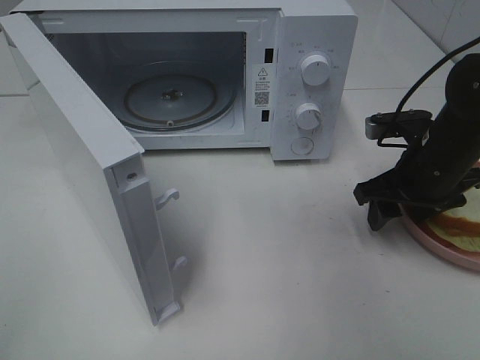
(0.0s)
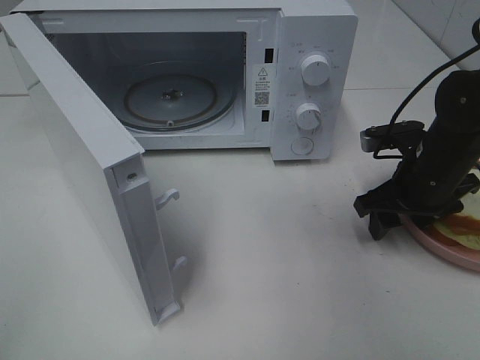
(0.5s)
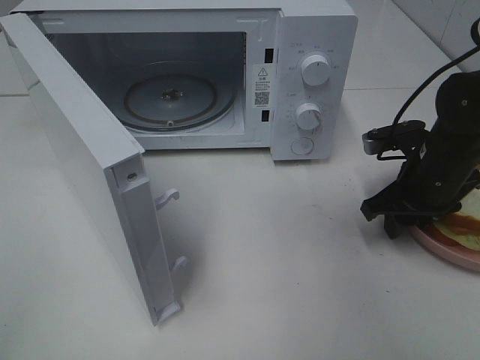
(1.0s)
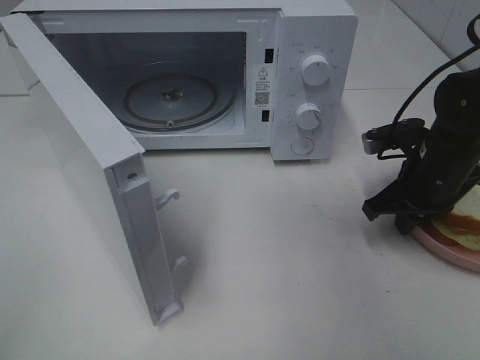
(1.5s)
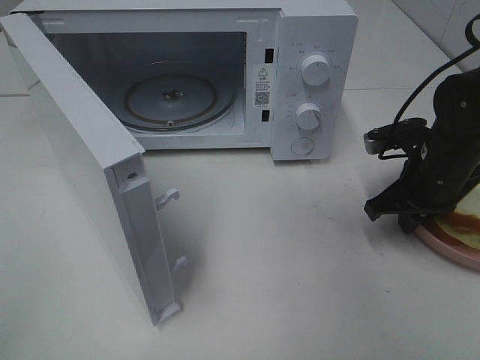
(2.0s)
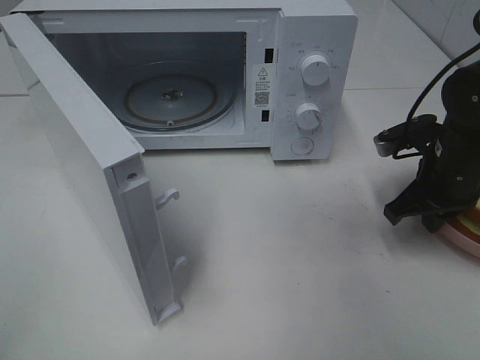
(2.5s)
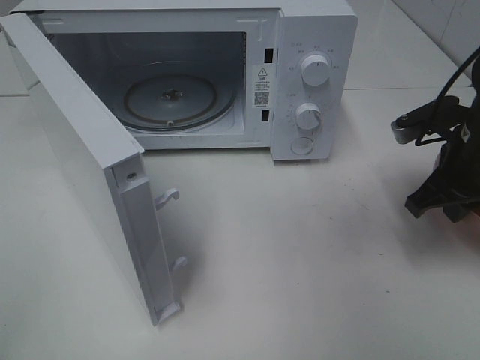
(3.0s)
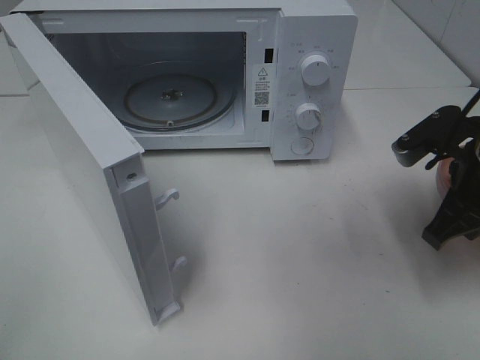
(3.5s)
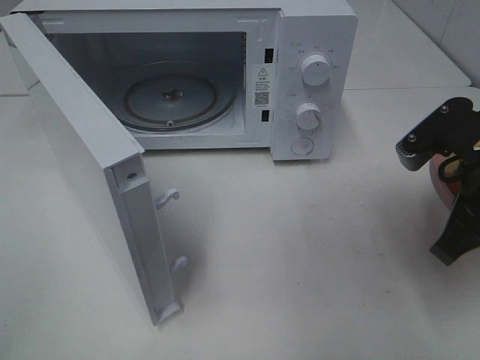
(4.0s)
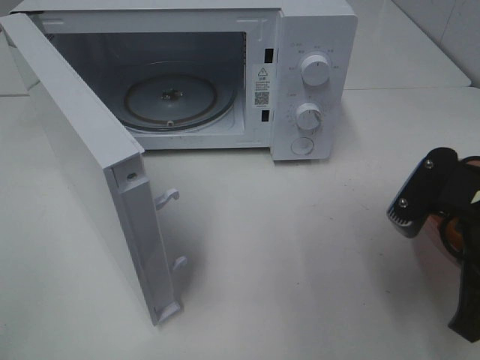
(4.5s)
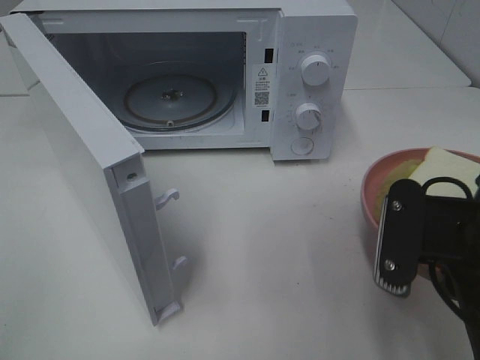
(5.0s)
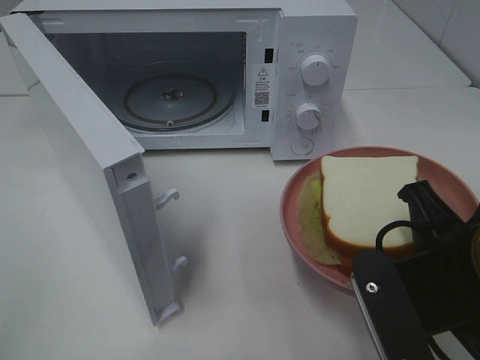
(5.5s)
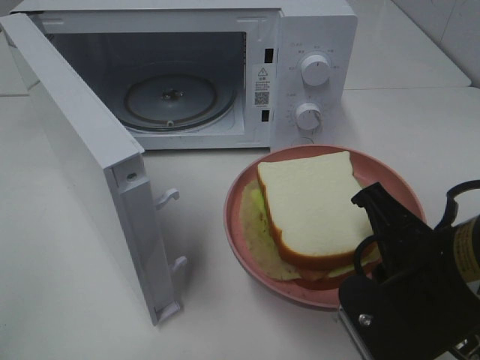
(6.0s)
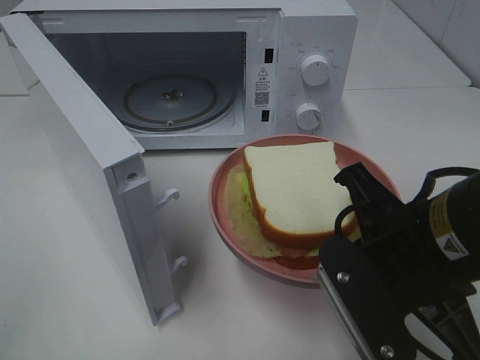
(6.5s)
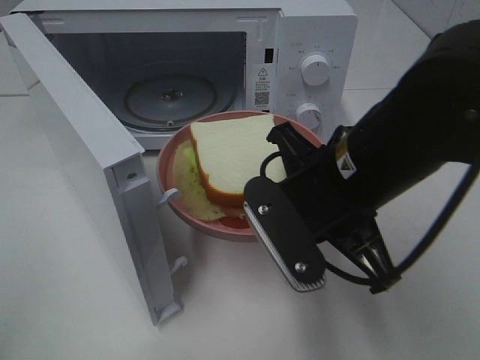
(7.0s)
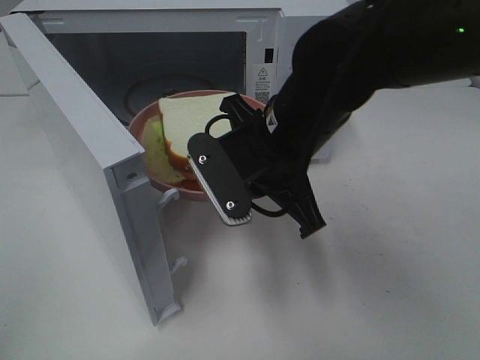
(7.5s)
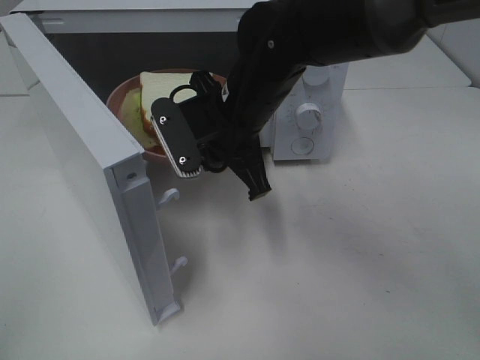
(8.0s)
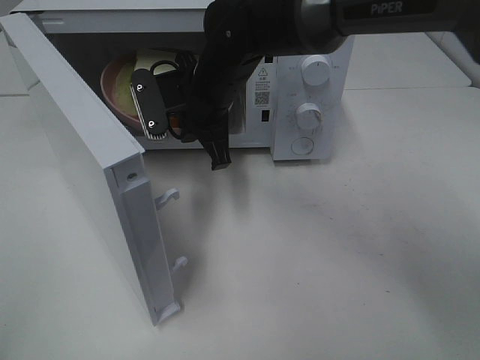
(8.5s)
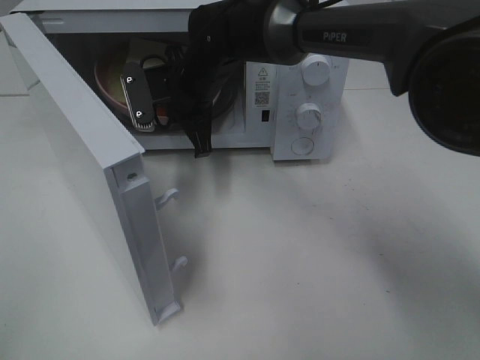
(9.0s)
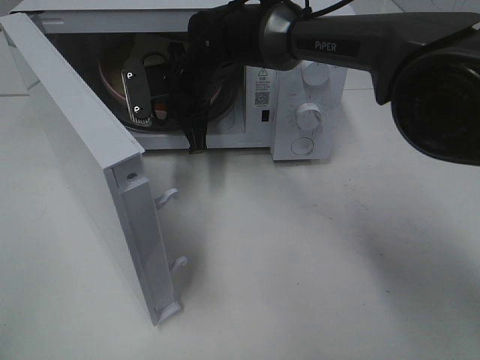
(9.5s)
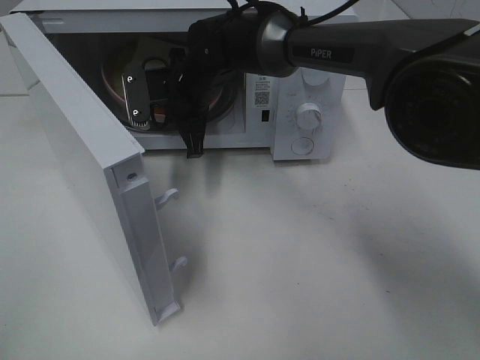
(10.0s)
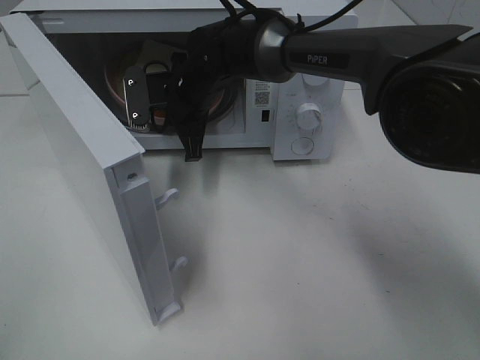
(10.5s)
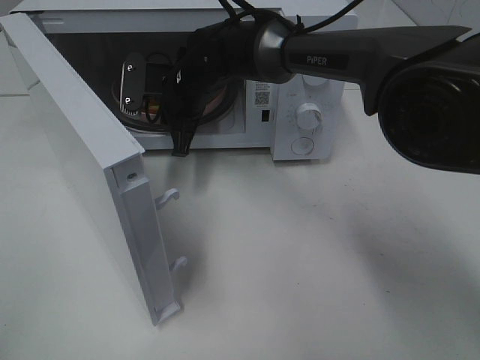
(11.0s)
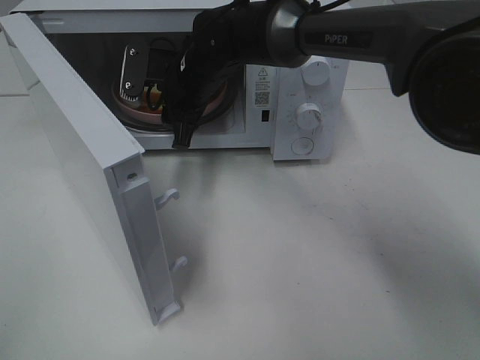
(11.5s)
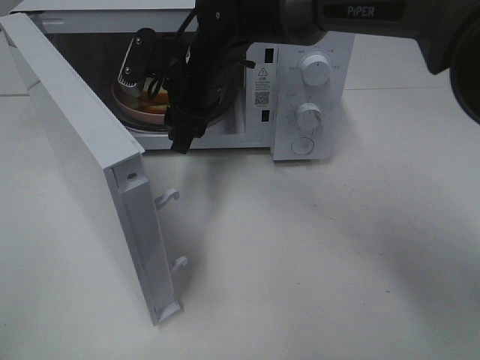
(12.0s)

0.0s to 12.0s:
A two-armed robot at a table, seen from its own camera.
Task of the whole recording: Heat Sandwich.
Step, 0.0s to 2.0s: Right hand: grab the plate with the sandwich.
0.0s to 2.0s: The right gripper closes up.
2.0s to 4.0s: The right gripper is displaced backward and upward by some 15 cm.
4.0s to 6.0s: The right gripper travels backward and to the left by roughly 10 cm.
6.0s to 8.0s: The right gripper goes some 25 cm forward and to the left.
8.0s to 10.0s: The right gripper heads forward and to the left, covering approximately 10 cm.
10.0s to 12.0s: The right gripper opens.

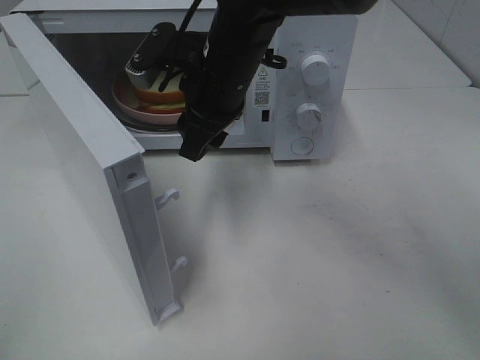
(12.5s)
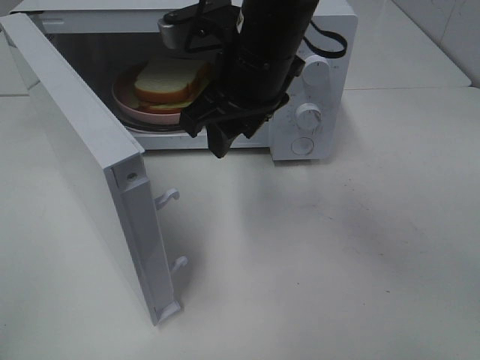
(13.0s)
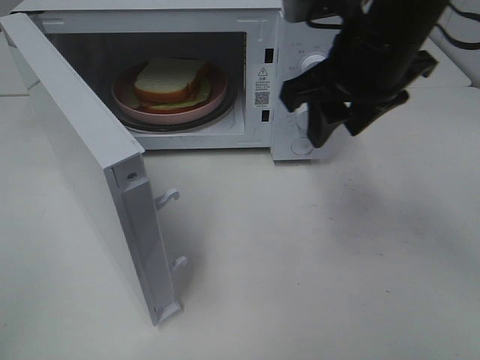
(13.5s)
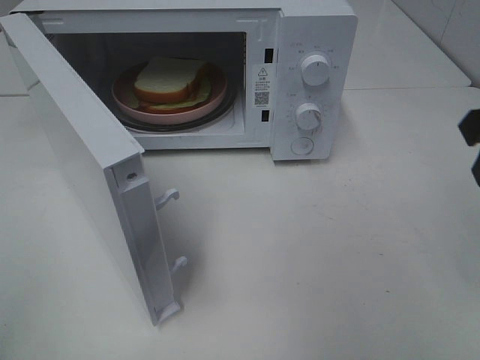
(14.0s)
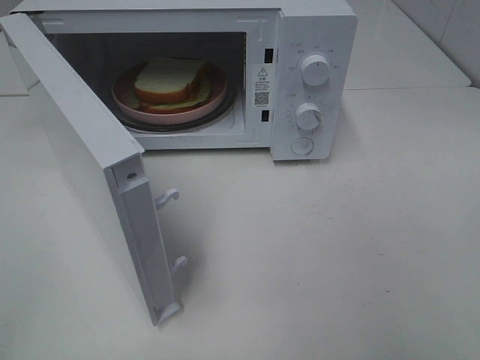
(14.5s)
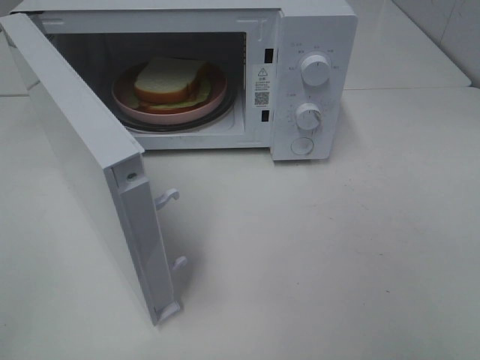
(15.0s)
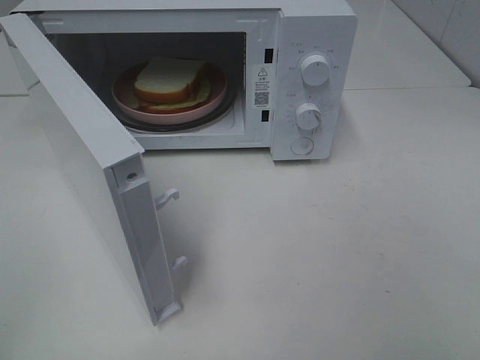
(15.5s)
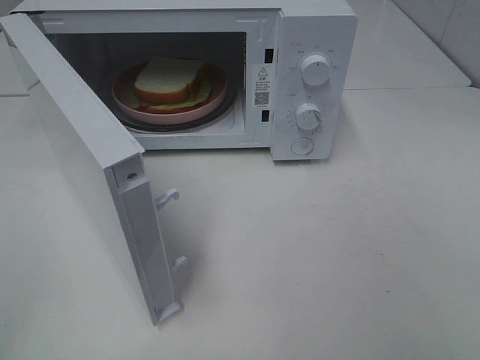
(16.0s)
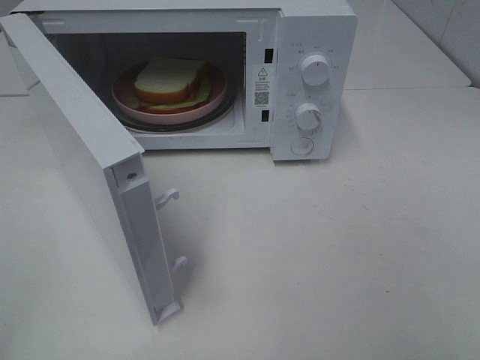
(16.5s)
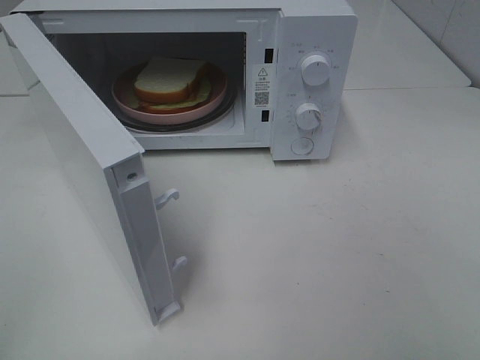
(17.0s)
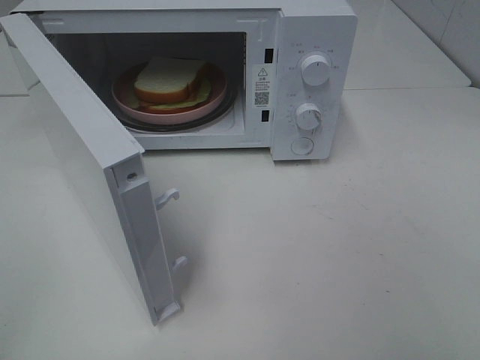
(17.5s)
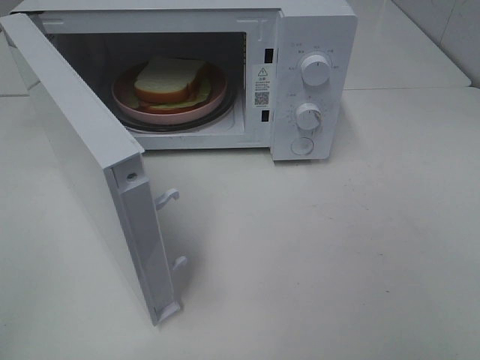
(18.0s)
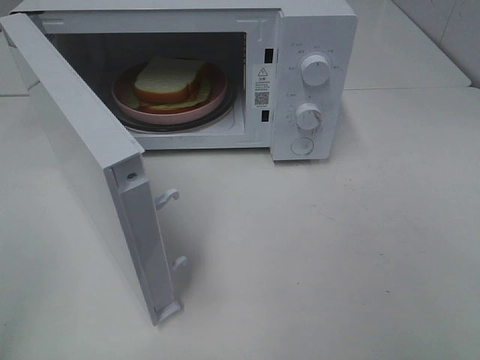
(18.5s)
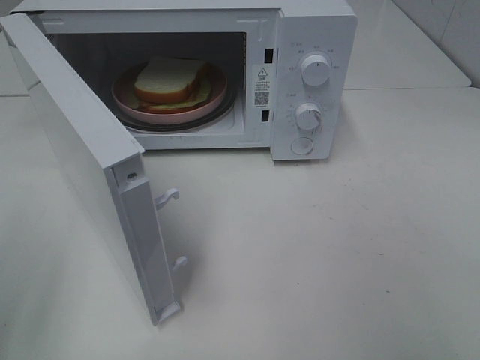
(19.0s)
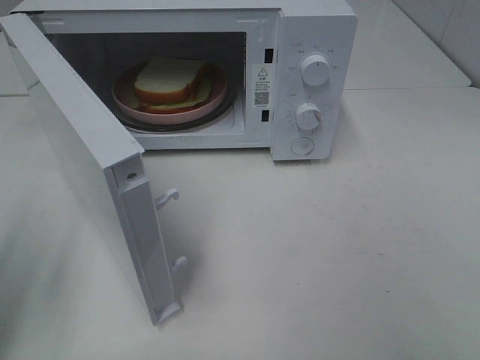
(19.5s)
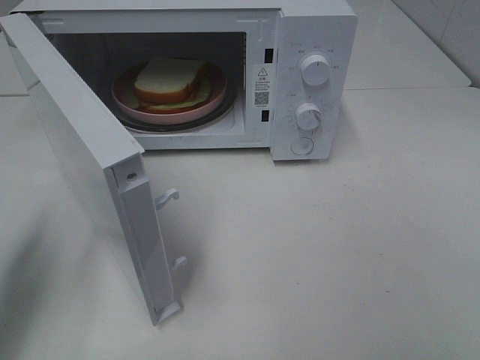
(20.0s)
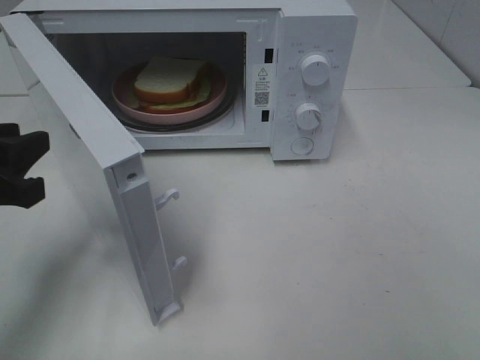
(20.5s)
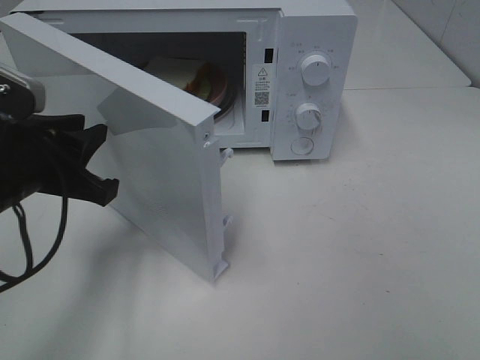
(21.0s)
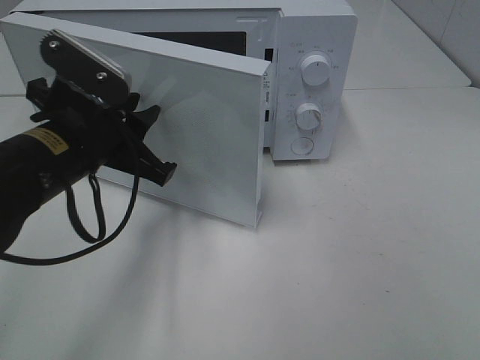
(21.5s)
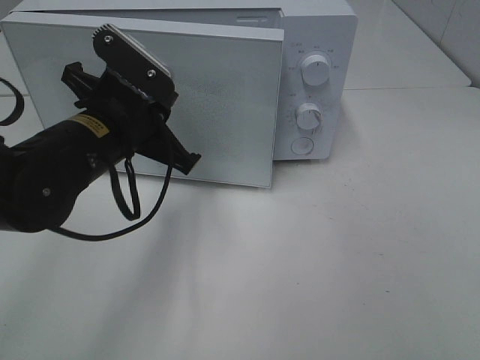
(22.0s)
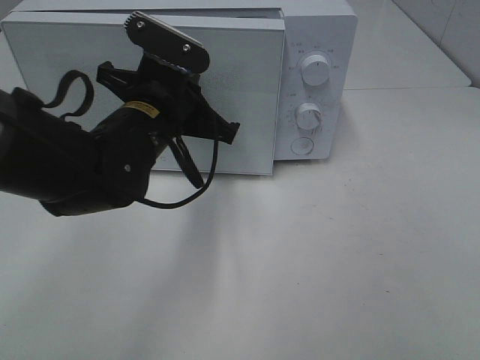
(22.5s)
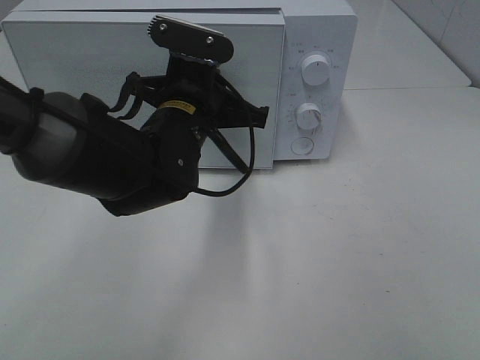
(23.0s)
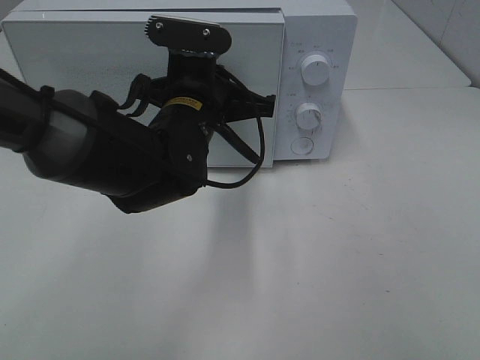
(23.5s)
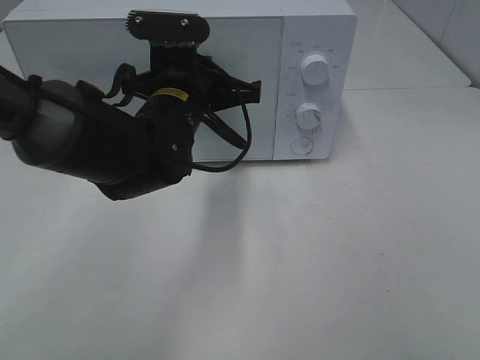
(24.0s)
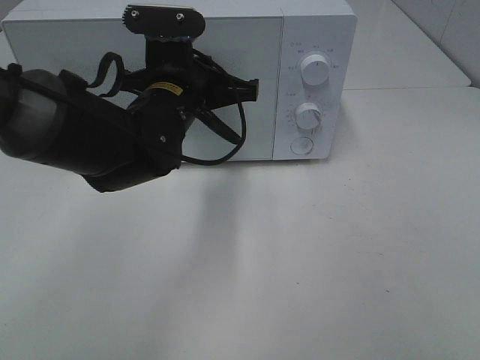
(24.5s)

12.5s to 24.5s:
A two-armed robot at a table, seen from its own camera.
Task of the whole recording: Heat Sandwich.
12.5s to 14.5s: The right gripper is displaced to the right and backward by some 40 cm.
18.5s to 20.5s: The left gripper travels forward, downward and to the right by roughly 20 cm, and closes up.
20.5s to 22.5s: The left gripper heads to the right and forward, covering about 20 cm, and closes.

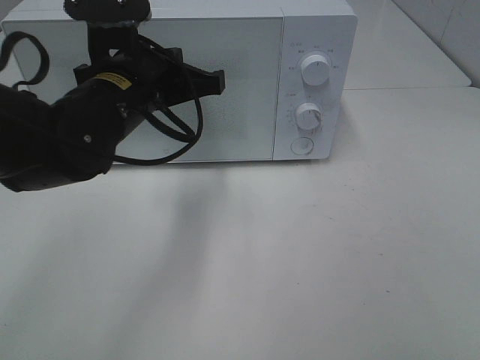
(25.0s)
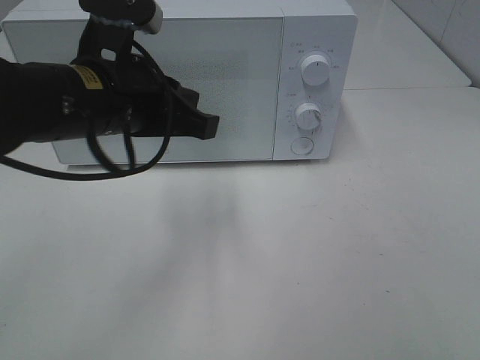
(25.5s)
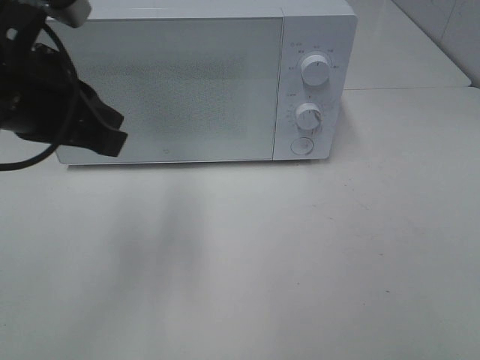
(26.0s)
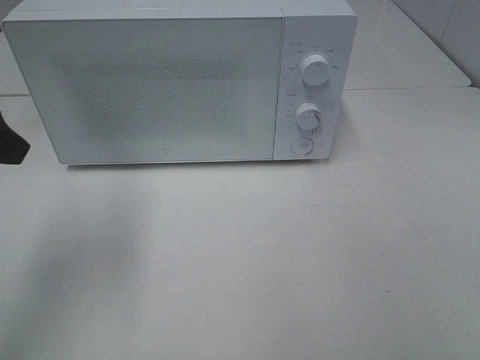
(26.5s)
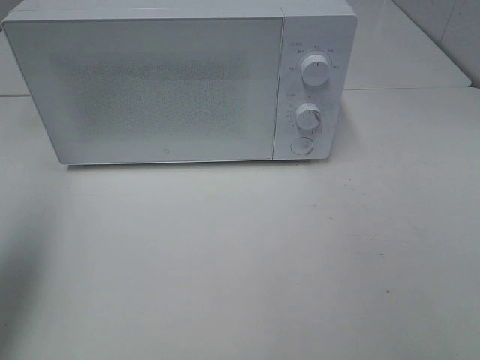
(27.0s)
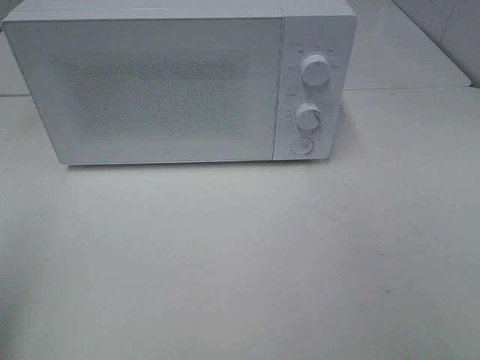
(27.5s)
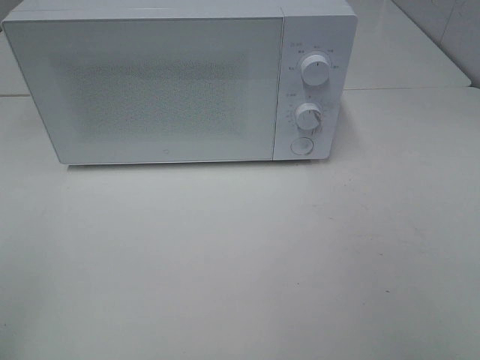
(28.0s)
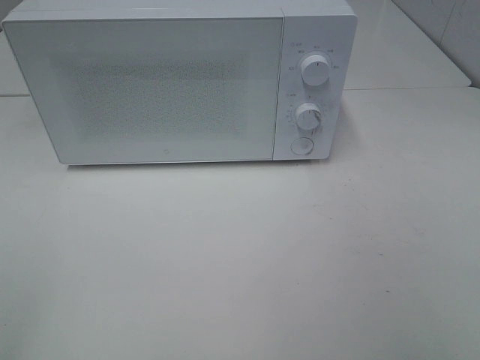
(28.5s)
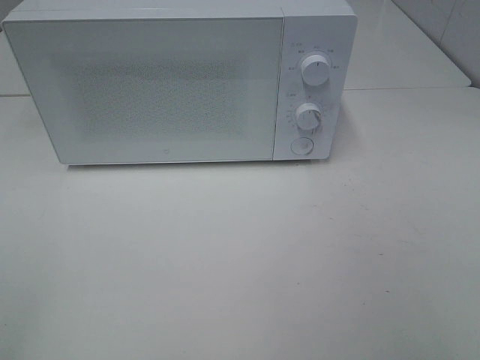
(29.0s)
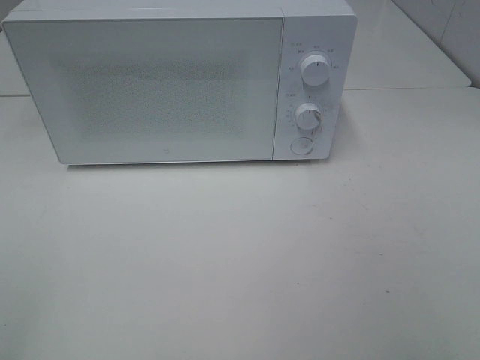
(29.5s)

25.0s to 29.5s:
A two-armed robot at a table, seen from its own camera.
Task of the whole recording: Heat Sandwich.
25.0s to 27.0s: The left gripper goes approximately 25 cm to the left and backward, and opens up.
27.0s to 29.5s: The left gripper travels backward by about 20 cm.
